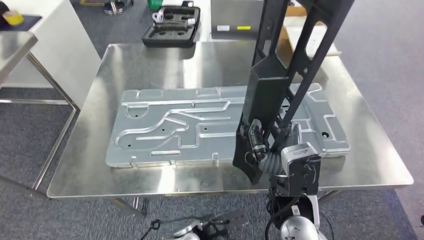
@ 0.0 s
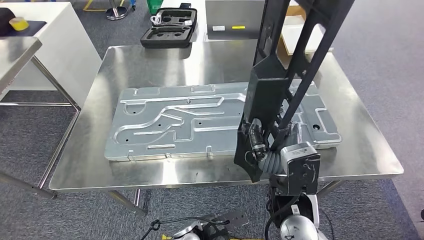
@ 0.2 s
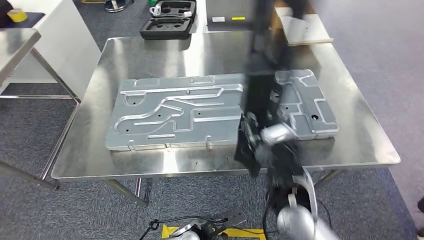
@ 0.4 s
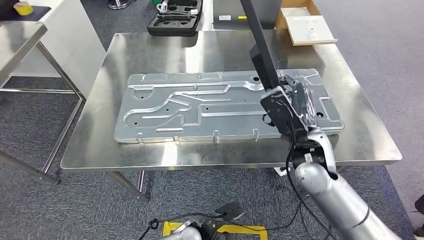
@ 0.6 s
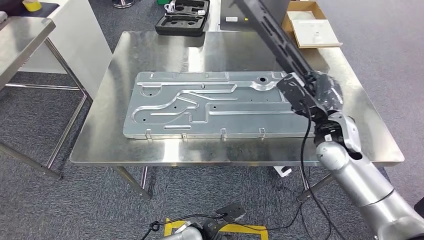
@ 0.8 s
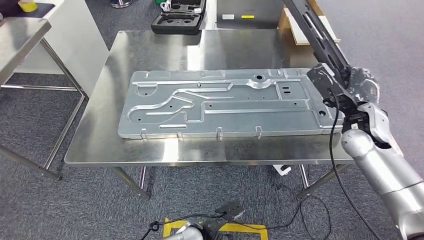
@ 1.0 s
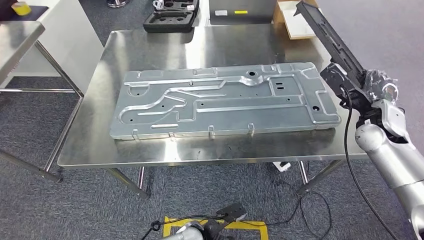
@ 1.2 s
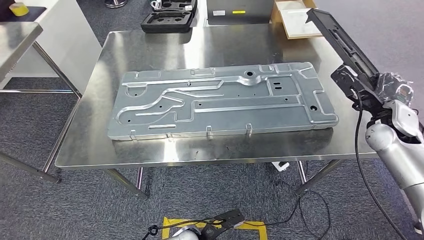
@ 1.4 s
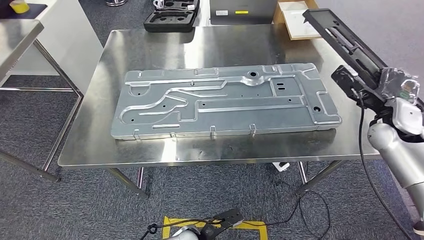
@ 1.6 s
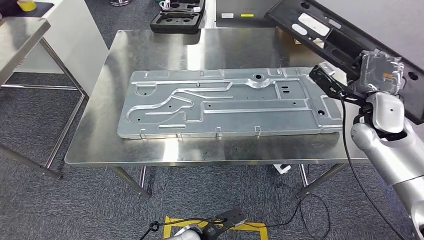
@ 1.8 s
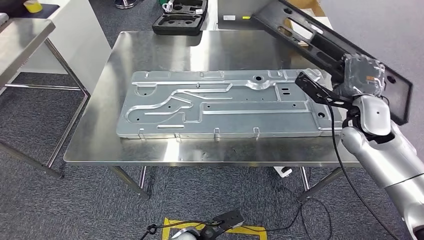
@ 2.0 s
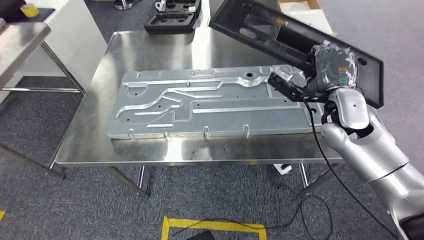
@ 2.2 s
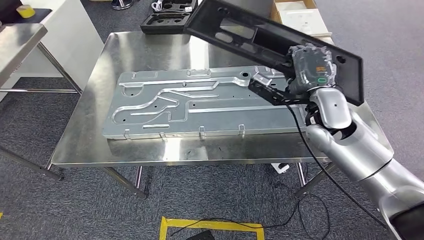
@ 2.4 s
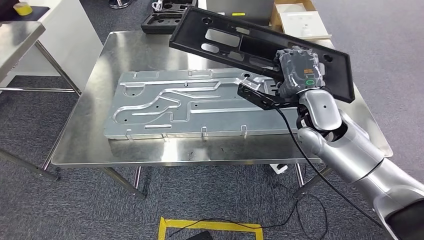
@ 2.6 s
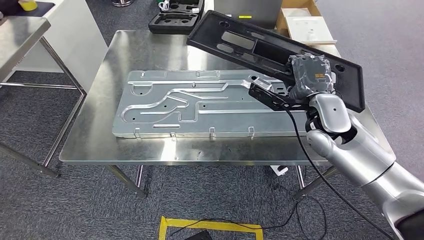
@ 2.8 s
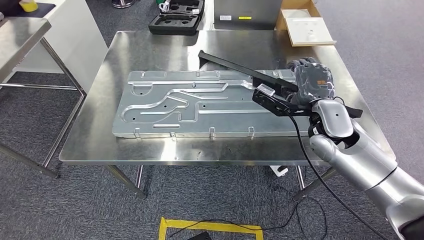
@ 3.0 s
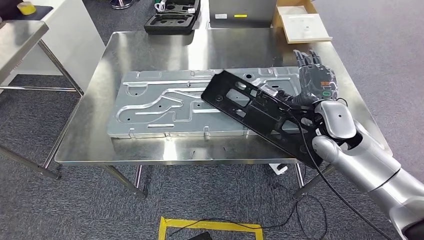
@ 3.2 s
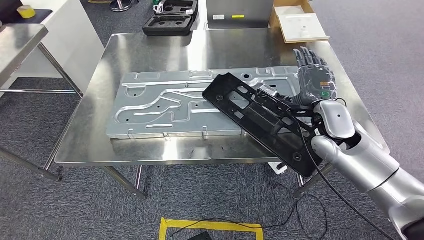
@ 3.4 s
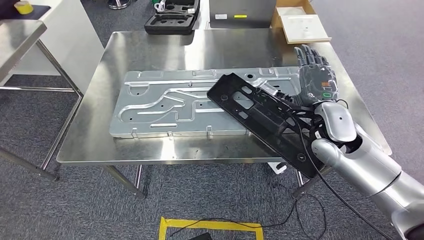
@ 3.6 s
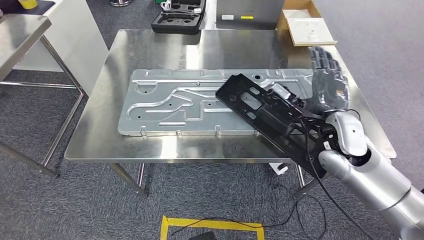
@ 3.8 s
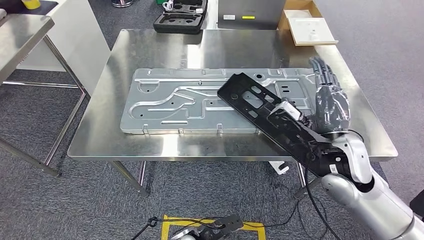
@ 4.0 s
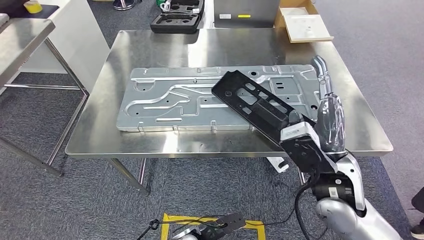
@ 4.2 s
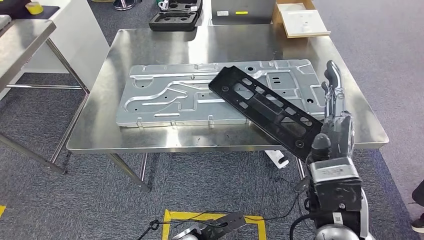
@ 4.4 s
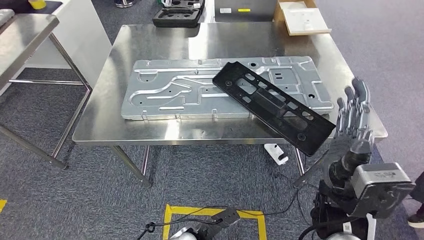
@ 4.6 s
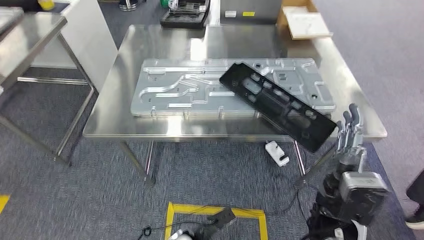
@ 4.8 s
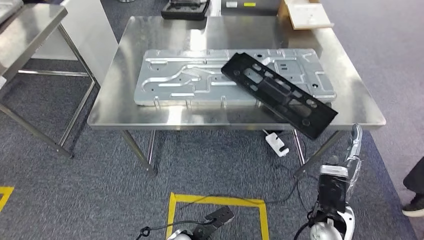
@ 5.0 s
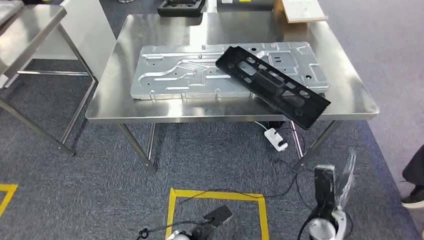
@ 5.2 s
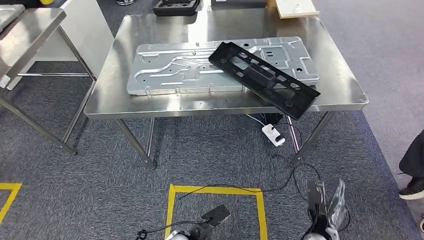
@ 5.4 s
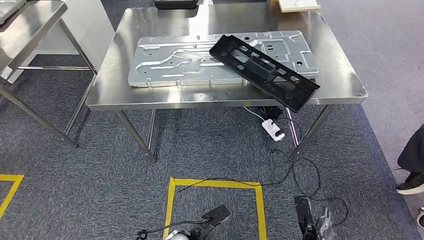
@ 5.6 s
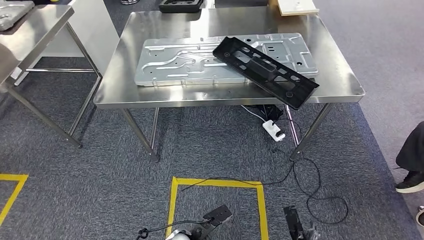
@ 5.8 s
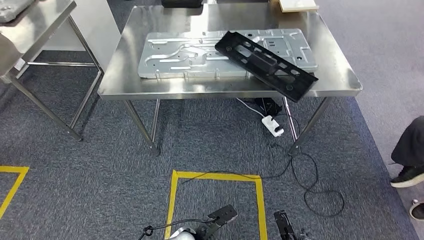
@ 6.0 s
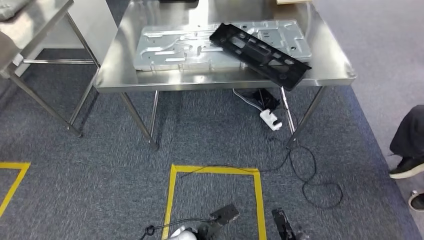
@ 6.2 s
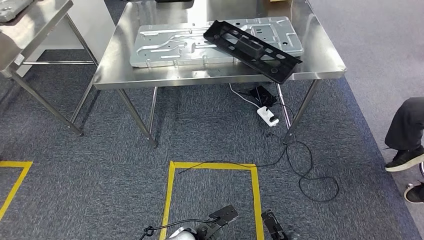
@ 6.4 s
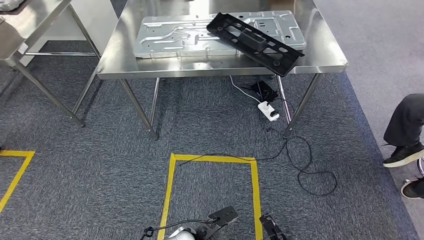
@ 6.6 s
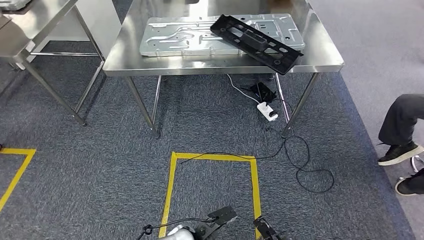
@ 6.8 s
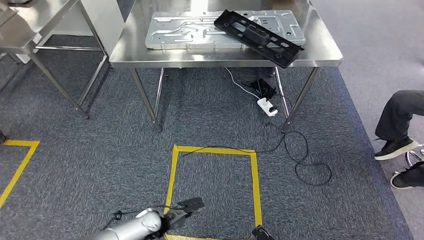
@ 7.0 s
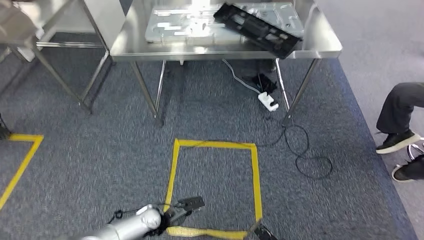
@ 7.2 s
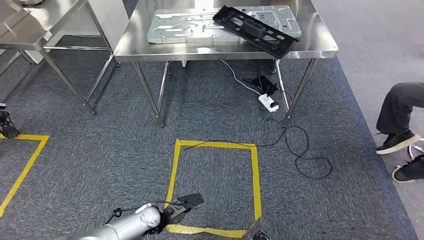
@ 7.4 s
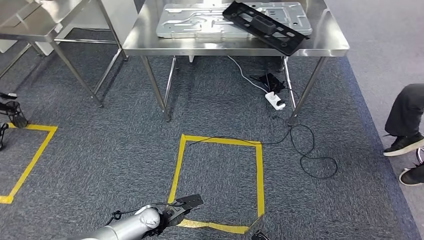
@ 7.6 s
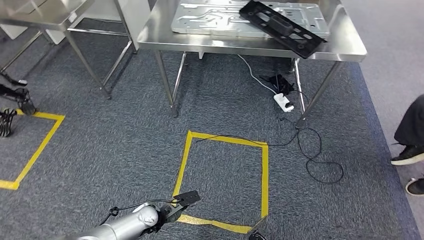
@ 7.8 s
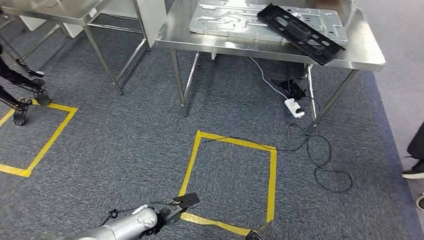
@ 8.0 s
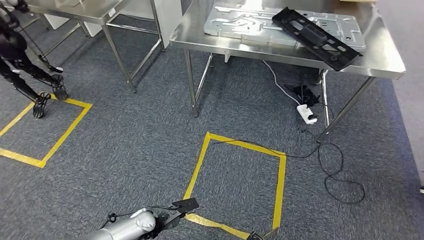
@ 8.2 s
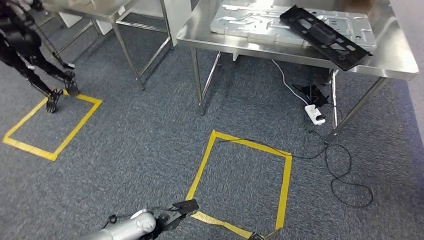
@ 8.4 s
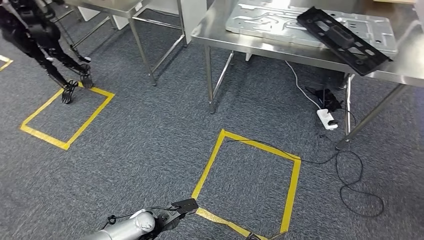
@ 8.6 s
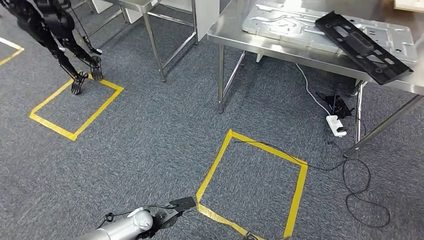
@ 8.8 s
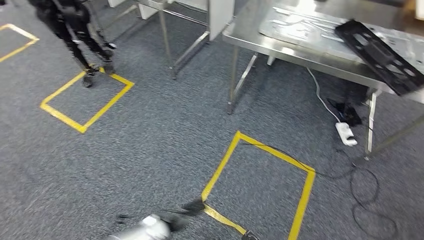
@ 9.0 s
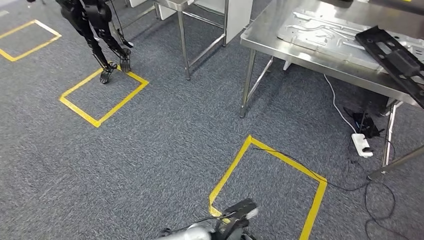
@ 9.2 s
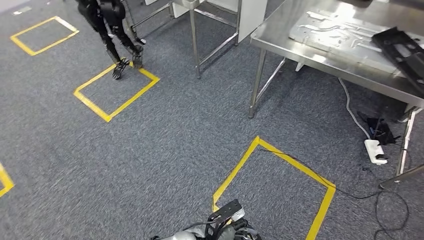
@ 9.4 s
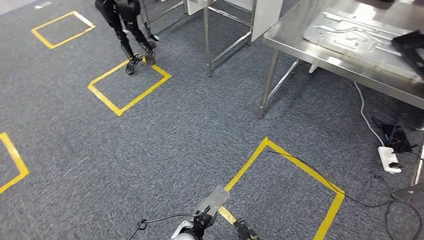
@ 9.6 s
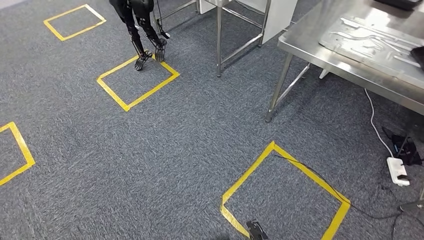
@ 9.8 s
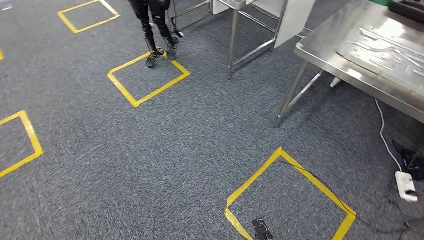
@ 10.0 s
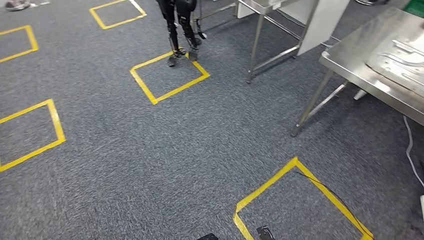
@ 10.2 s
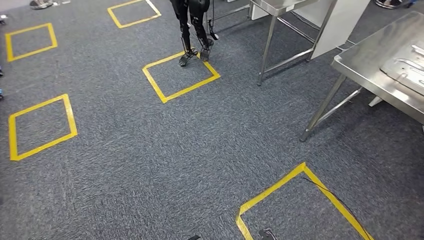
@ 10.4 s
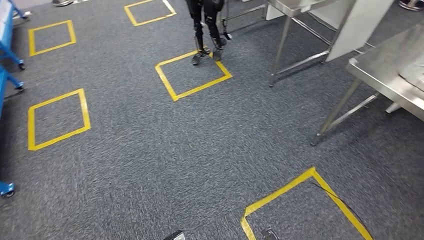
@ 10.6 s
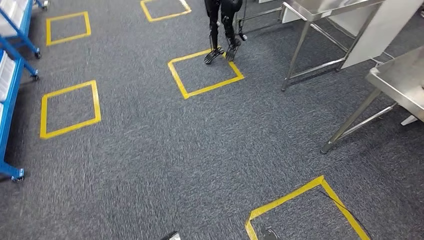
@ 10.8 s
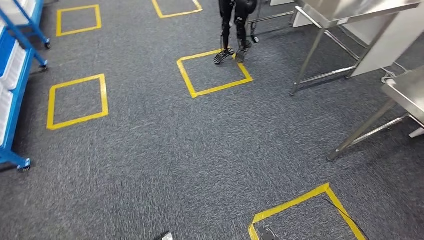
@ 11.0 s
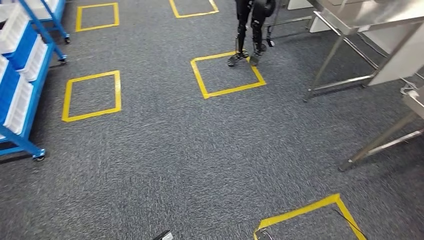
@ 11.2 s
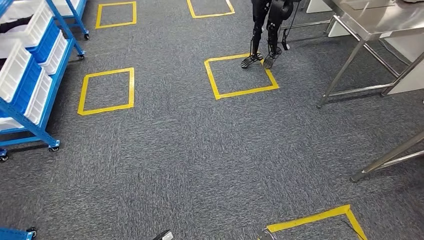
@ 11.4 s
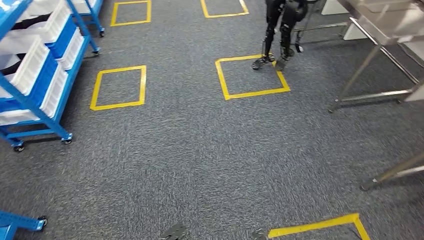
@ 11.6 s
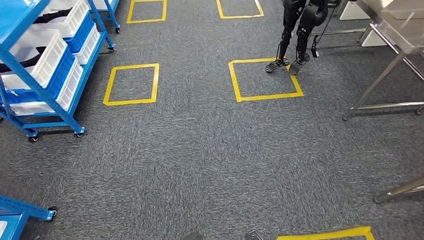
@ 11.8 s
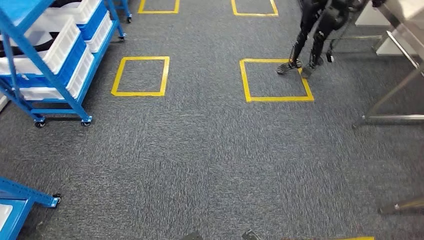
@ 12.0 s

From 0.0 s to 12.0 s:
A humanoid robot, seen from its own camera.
Step, from 0.0 s to 4.2 s: Insert the large material into the corresponding slot on the workbench.

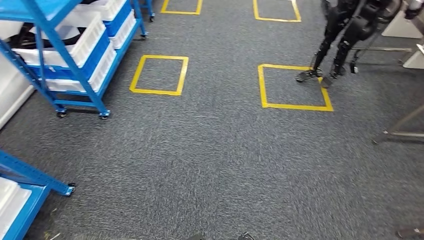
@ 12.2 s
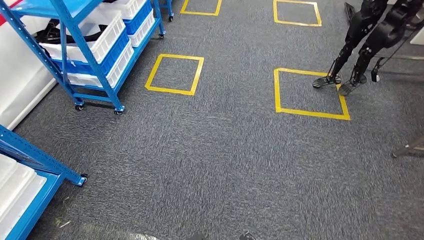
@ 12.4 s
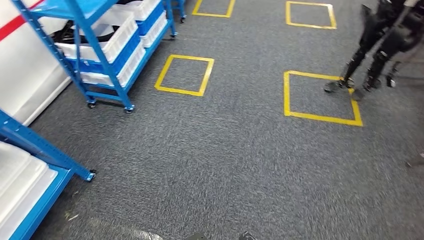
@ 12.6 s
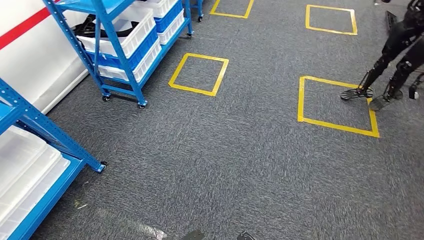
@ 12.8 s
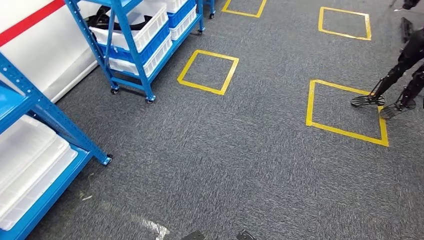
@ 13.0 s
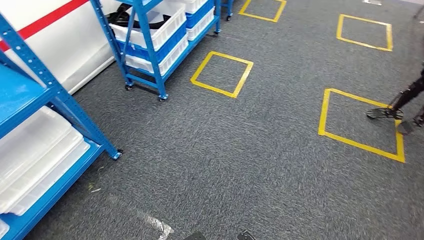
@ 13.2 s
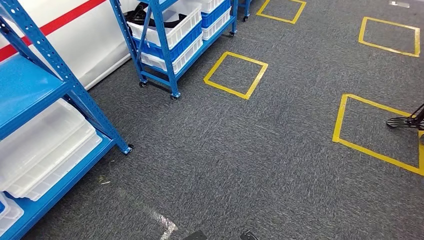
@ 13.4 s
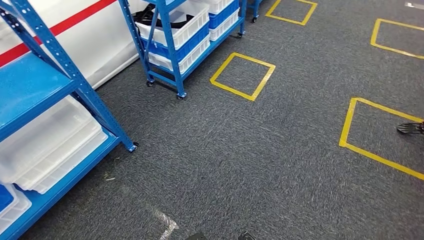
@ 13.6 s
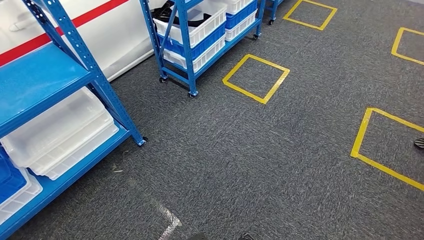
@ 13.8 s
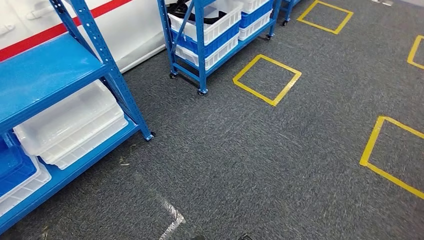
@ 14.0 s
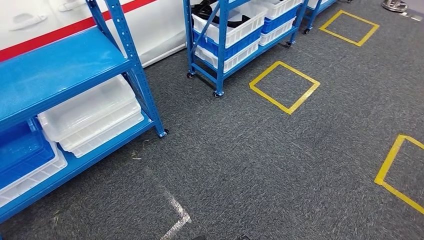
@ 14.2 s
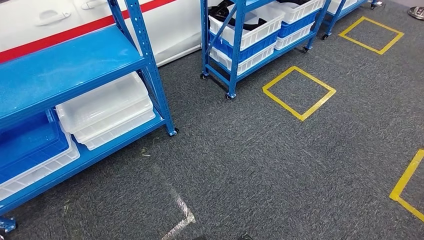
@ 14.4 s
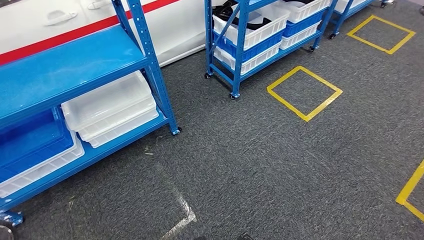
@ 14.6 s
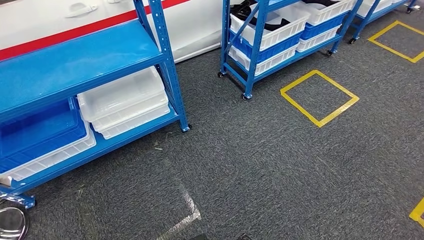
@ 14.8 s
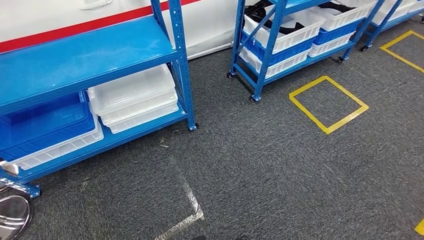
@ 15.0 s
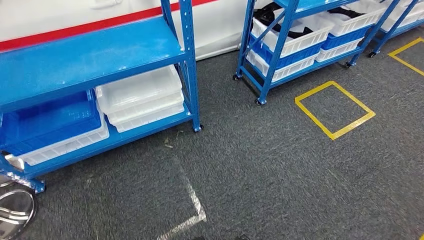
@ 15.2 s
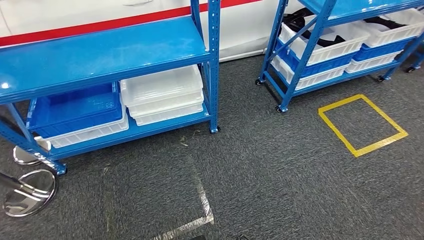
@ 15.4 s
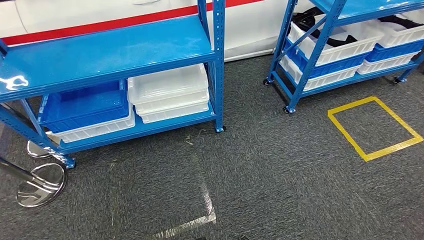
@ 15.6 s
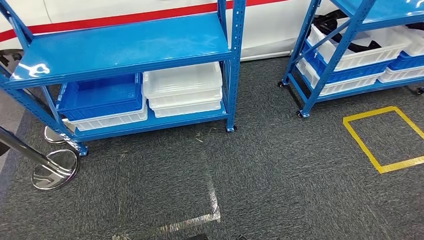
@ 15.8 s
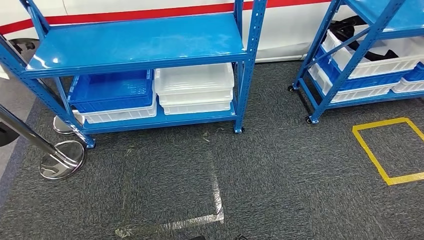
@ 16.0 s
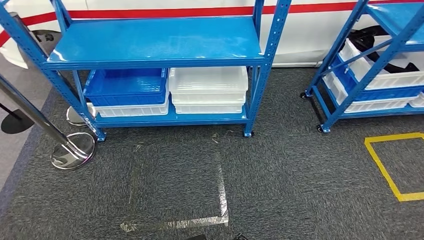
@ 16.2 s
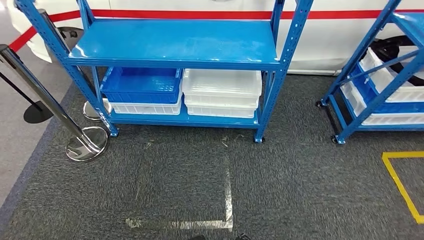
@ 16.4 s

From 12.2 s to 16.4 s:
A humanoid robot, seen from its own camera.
Step, from 12.2 s to 16.4 s: Move to the initial position of the shelf.
